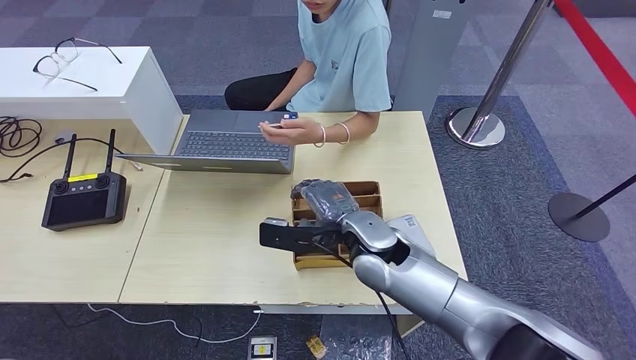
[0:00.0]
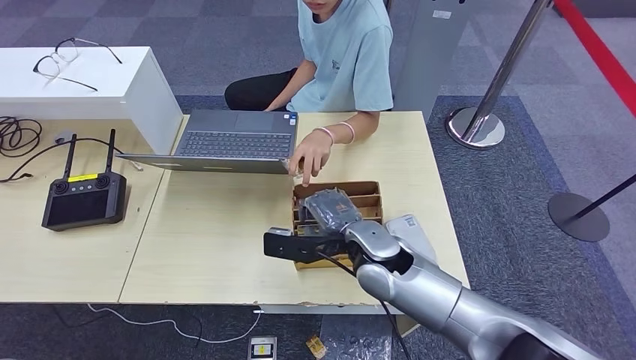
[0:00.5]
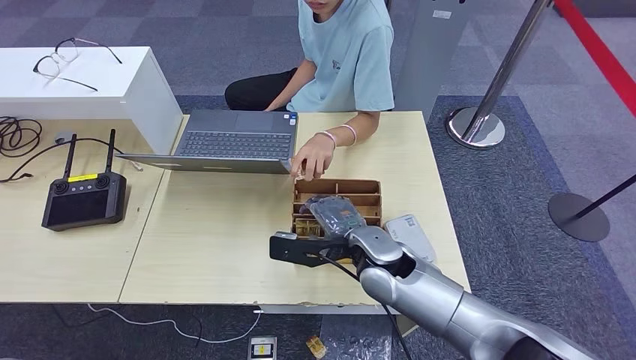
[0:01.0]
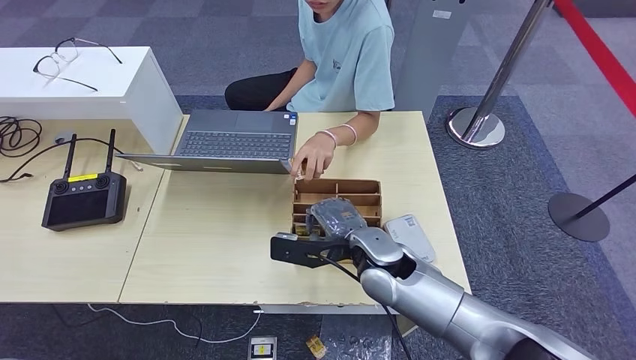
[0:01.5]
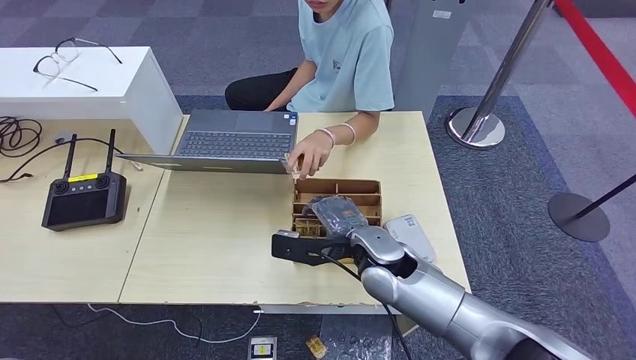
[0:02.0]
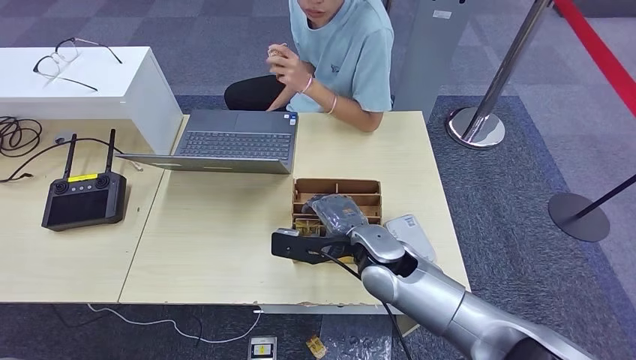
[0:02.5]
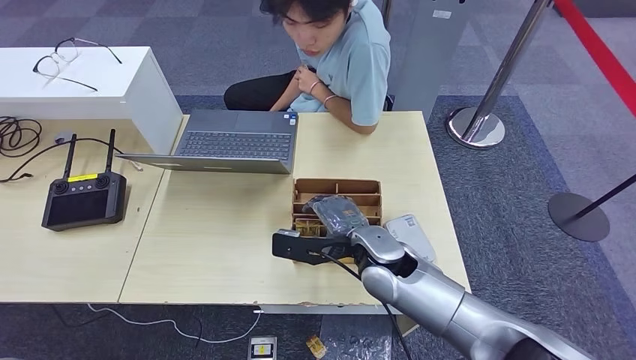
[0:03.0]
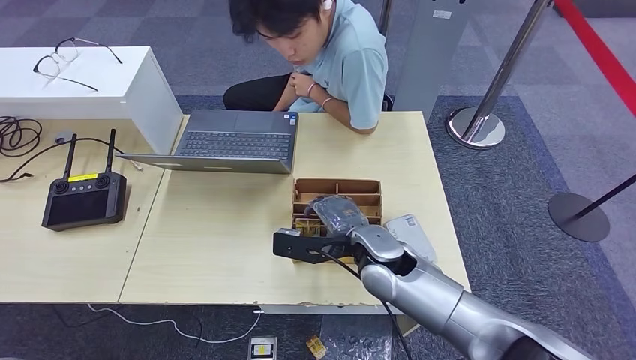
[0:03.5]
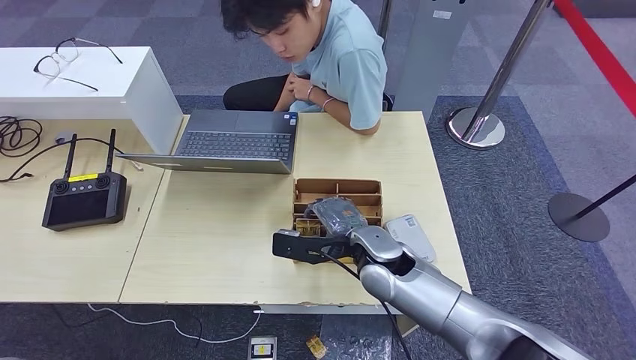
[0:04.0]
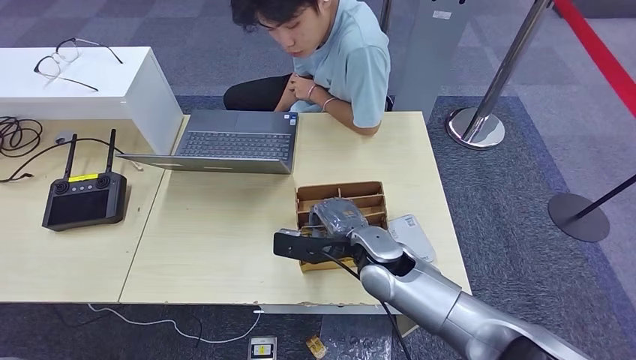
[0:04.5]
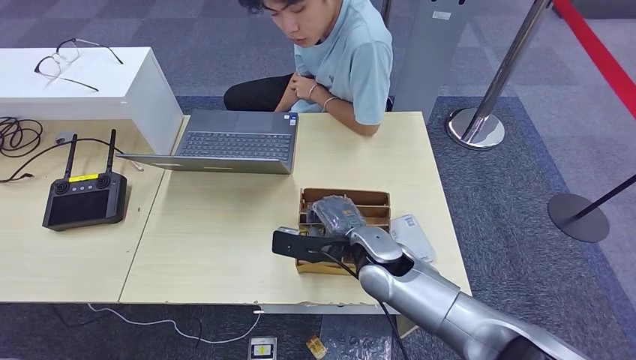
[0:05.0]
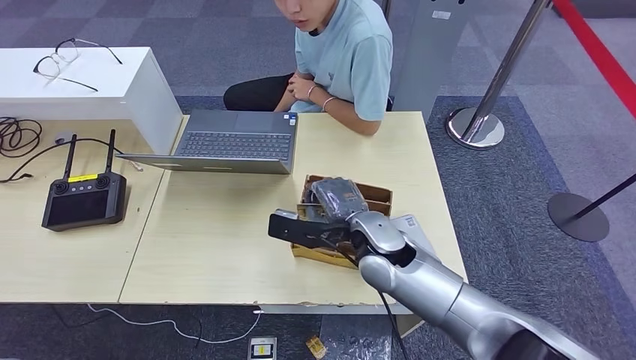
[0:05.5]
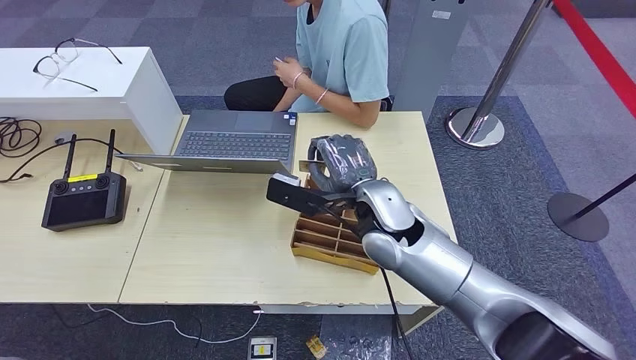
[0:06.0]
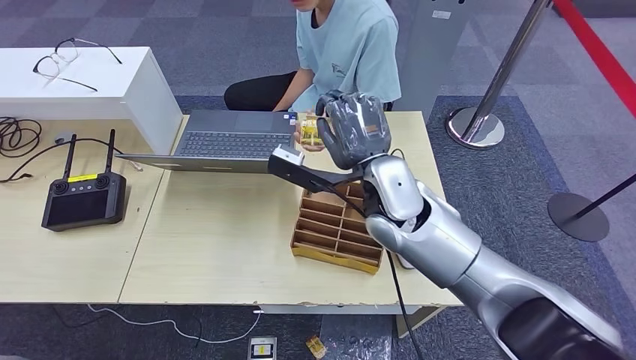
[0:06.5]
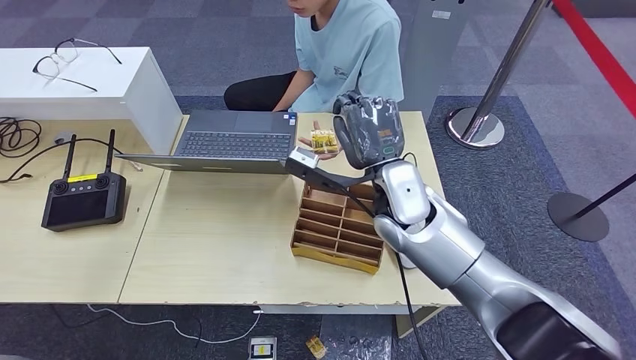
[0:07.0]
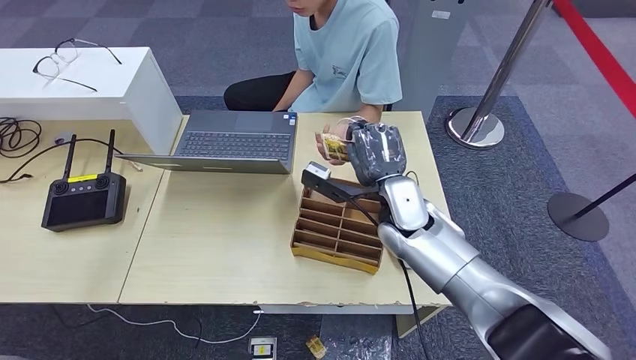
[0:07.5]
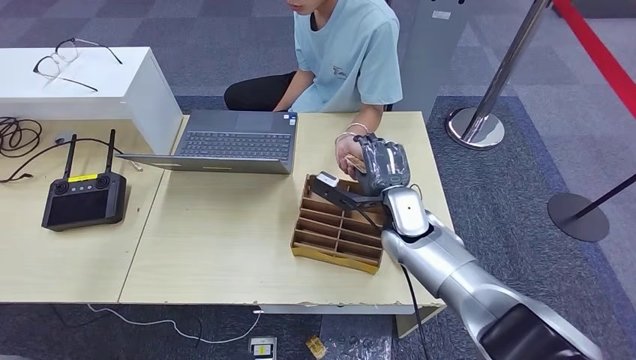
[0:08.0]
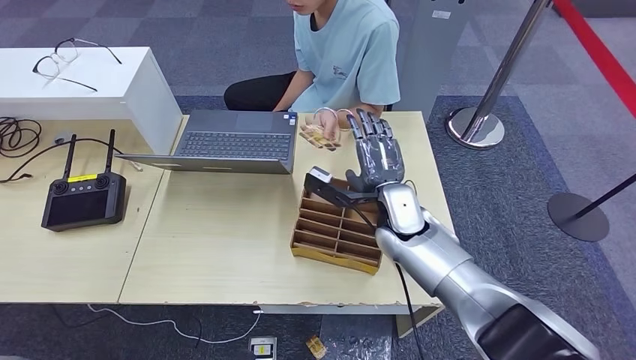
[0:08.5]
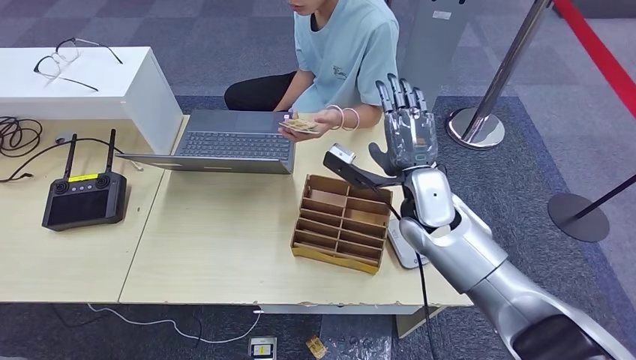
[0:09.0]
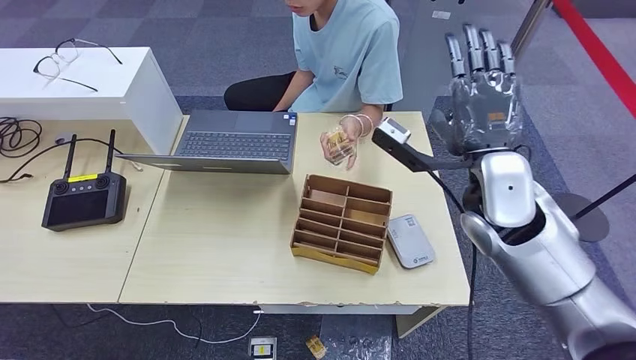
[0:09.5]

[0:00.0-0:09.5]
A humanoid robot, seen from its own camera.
Step, 0:00.0 to 0:07.0: Pick up the room key from the key card box.
Step, 0:07.5 to 0:09.5: Hand the room key to the person.
0:00.0 to 0:02.0: The hands stay close to where they were, moving slightly.
0:02.0 to 0:04.0: Both hands stay about where they are.
0:04.0 to 0:05.5: The hands make only small movements.
0:05.5 to 0:07.5: The right hand is displaced forward by some 5 cm, and reaches roughly 10 cm upward, then returns.
0:07.5 to 0:09.5: The right hand goes some 15 cm upward, to the right and backward.
